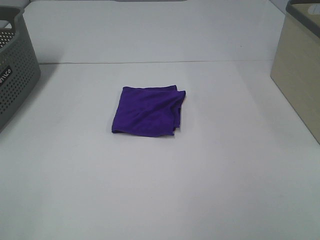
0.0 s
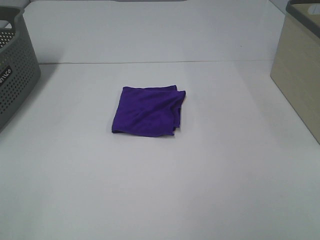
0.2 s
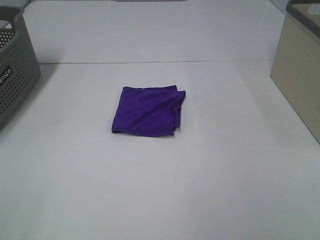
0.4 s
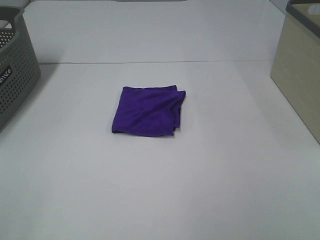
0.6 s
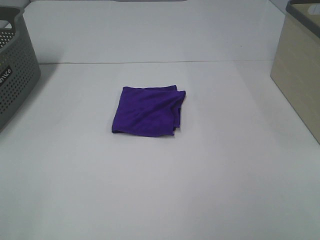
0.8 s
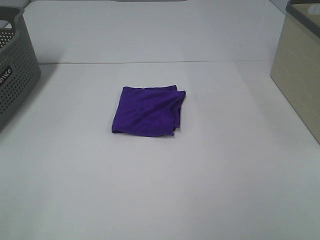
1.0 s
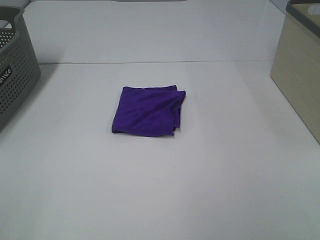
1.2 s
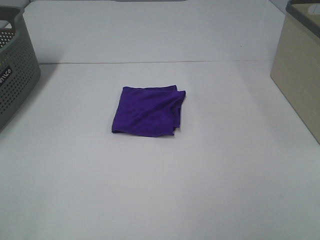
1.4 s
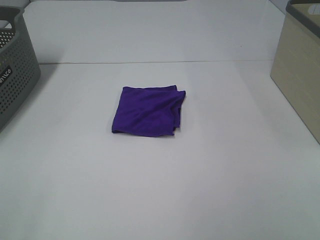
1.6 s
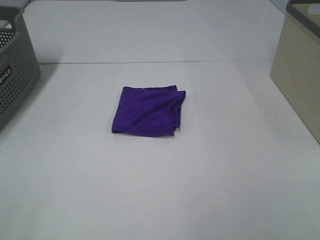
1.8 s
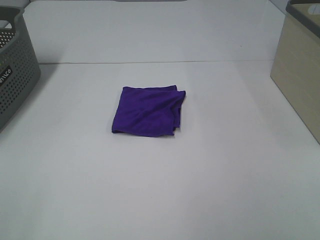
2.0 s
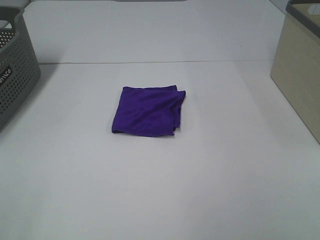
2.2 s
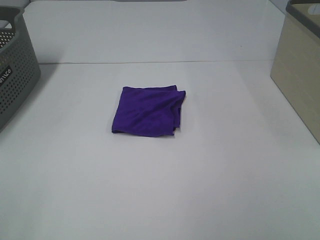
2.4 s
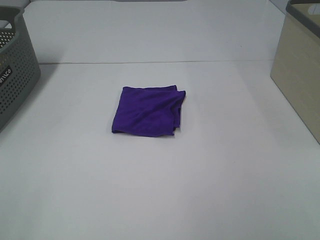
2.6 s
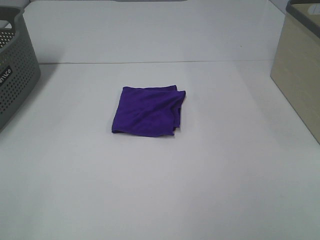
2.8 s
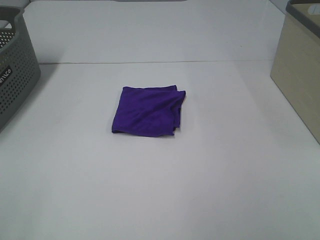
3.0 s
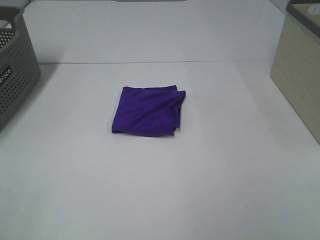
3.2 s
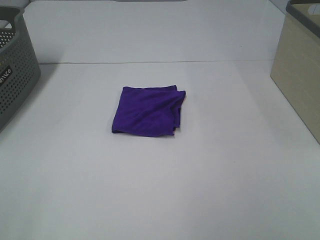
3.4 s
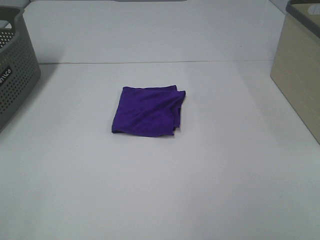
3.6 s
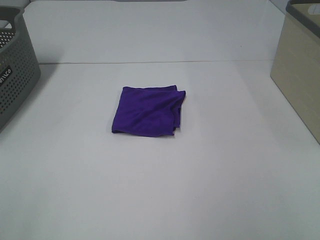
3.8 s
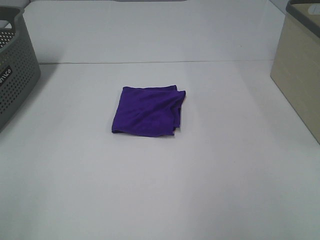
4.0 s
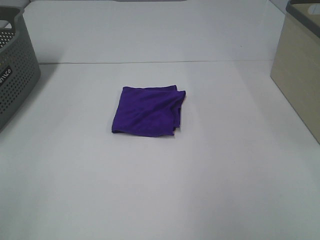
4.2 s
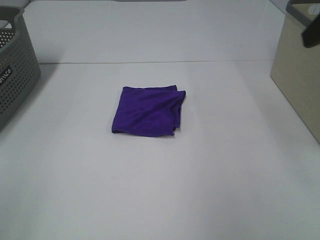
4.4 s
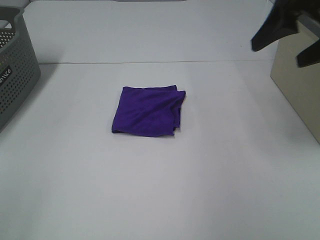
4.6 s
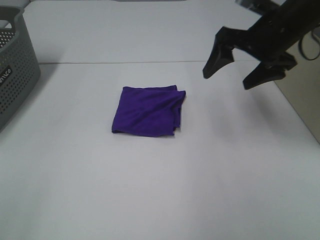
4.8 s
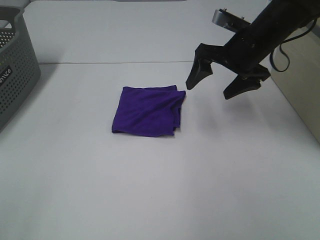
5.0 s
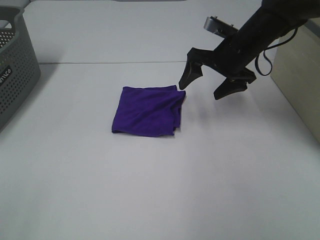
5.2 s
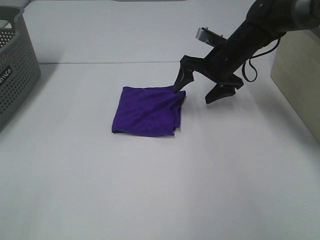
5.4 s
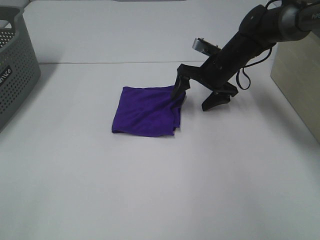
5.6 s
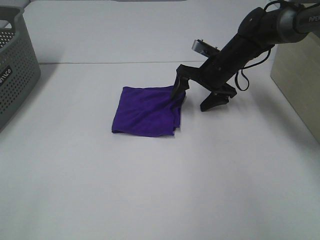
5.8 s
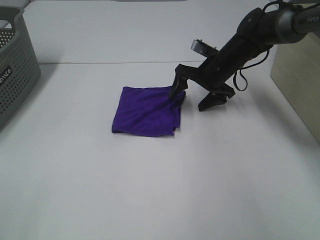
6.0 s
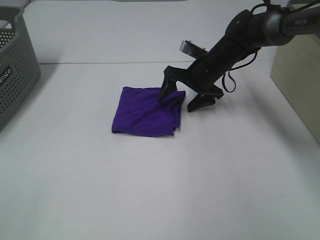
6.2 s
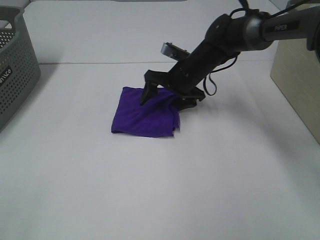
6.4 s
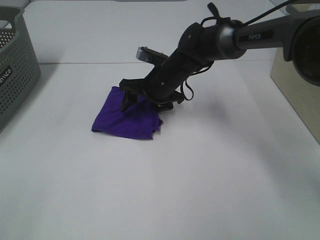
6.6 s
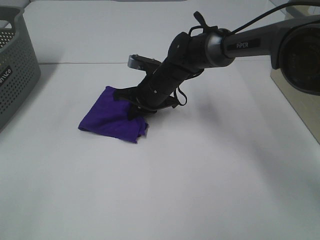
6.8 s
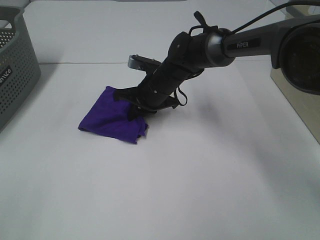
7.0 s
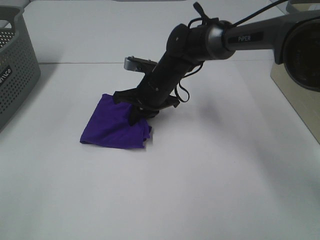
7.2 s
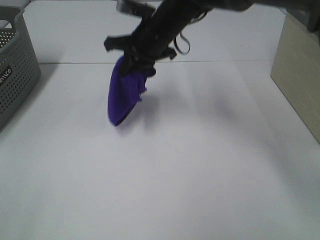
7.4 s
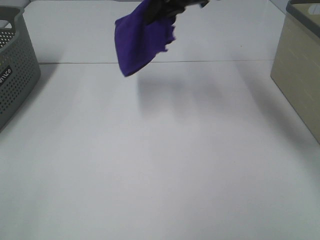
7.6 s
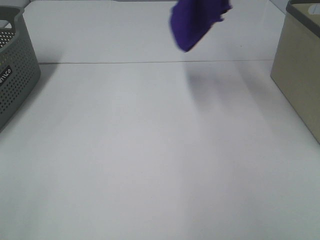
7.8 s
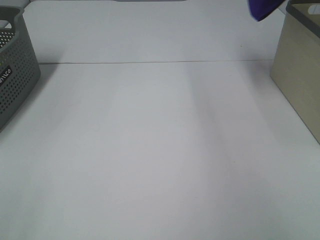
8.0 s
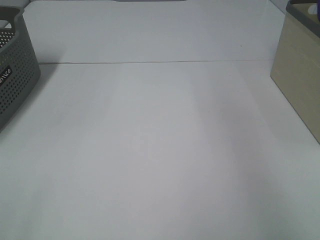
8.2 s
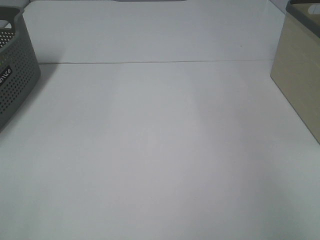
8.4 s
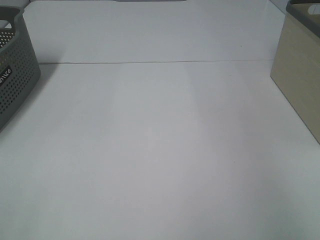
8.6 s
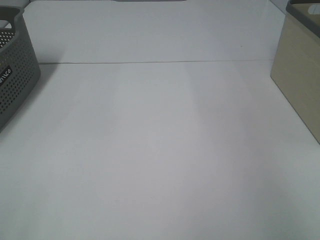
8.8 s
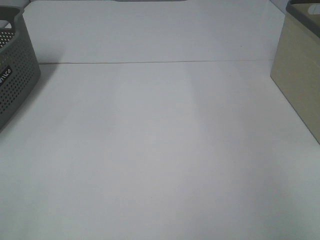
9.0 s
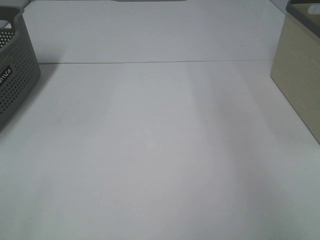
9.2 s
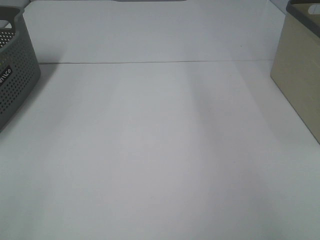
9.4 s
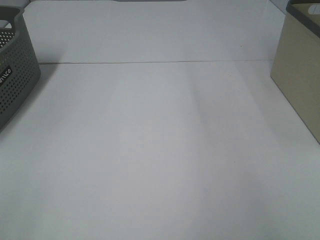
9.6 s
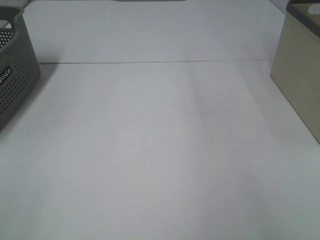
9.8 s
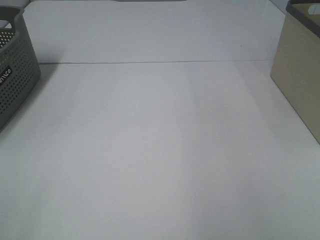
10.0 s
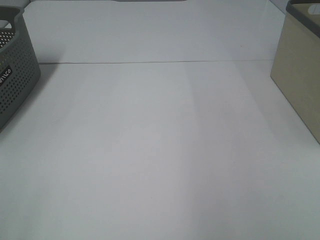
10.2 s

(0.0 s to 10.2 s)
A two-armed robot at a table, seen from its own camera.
Step, 0.0 s - 6.8 s: Right hand: grab the folded purple towel.
Step, 7.0 s - 8.8 s: Right hand: place the purple towel in right basket.
0.0 s - 3.0 s: Both grippers stay about where they are.
4.4 s - 5.8 s: The right gripper goes about 35 cm downward, forward and to the left.
5.8 s - 7.2 s: The right gripper heads to the left, covering approximately 15 cm, and closes up.
7.2 s - 8.8 s: The right gripper moves to the right and upward, approximately 50 cm, and opens.

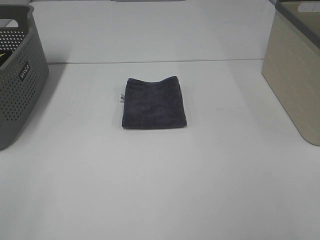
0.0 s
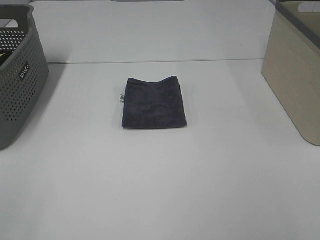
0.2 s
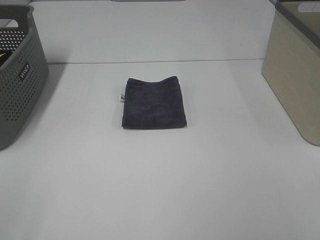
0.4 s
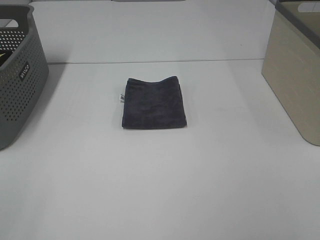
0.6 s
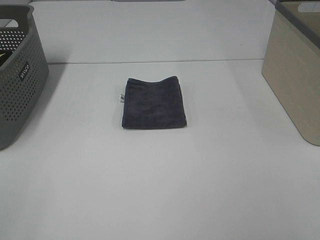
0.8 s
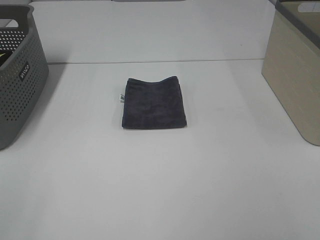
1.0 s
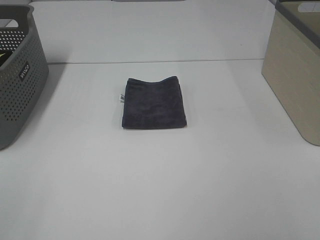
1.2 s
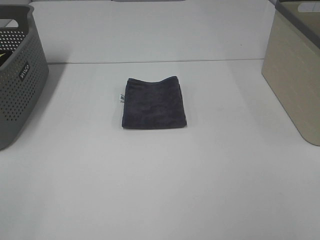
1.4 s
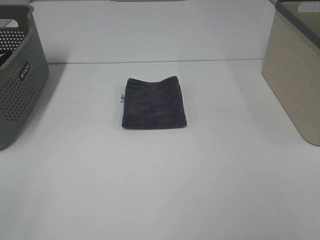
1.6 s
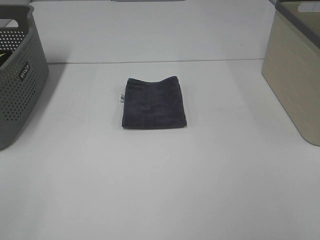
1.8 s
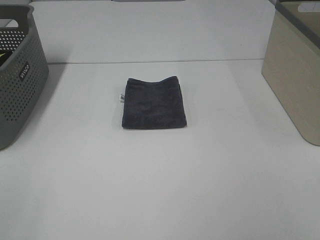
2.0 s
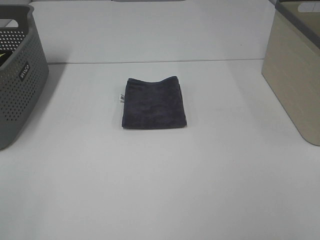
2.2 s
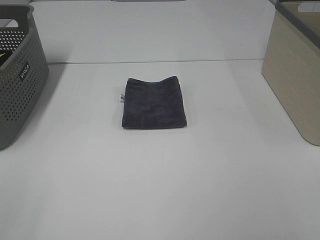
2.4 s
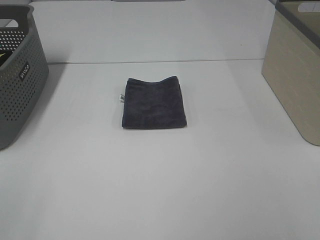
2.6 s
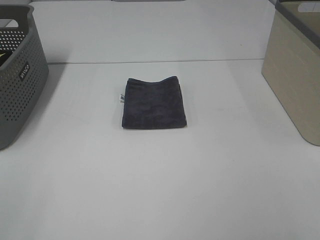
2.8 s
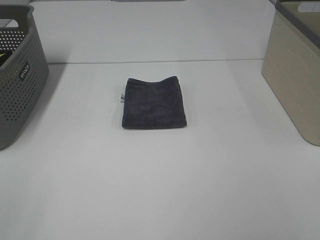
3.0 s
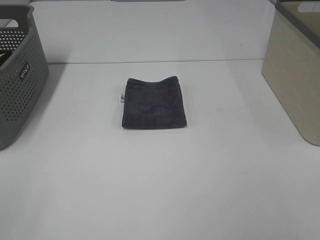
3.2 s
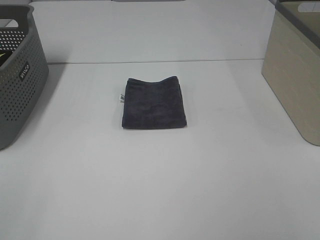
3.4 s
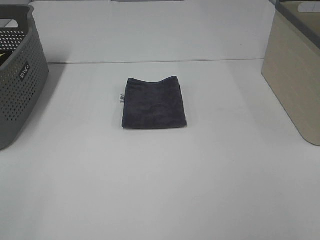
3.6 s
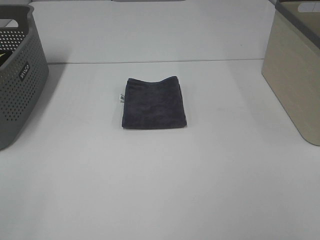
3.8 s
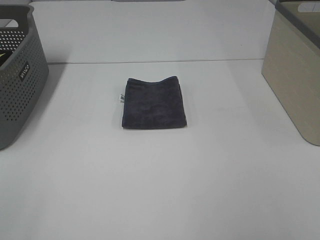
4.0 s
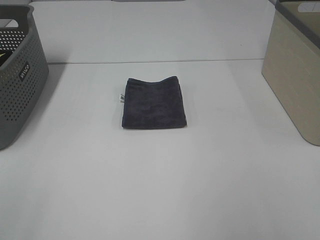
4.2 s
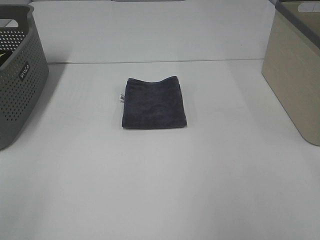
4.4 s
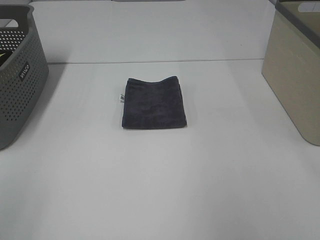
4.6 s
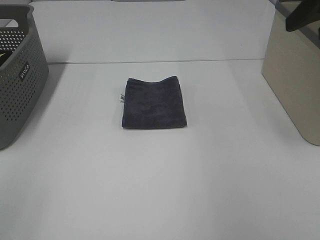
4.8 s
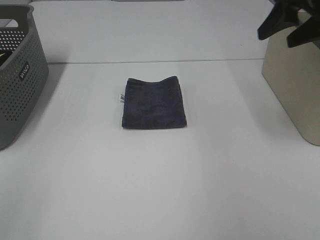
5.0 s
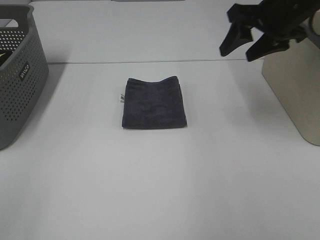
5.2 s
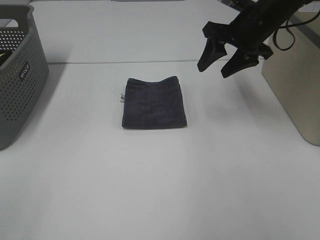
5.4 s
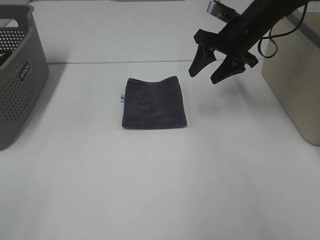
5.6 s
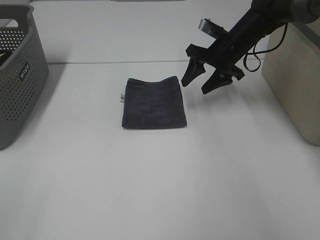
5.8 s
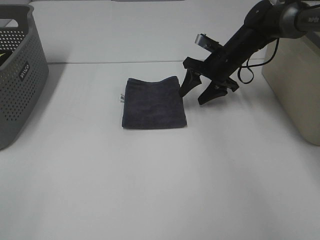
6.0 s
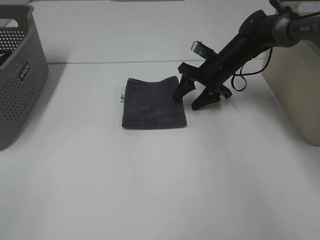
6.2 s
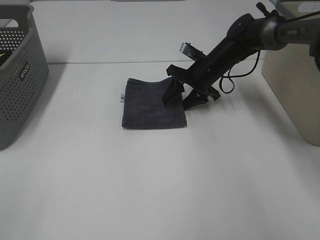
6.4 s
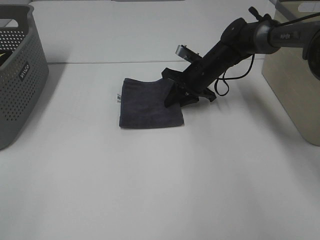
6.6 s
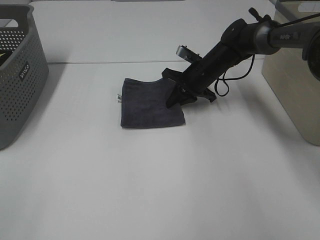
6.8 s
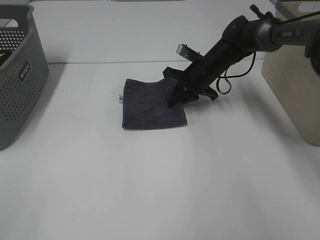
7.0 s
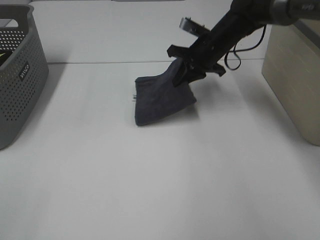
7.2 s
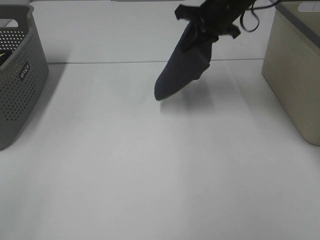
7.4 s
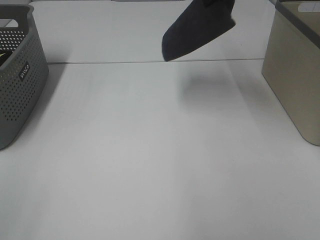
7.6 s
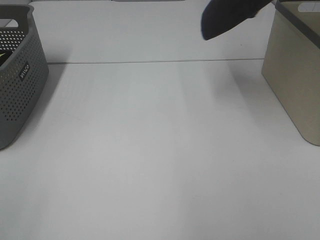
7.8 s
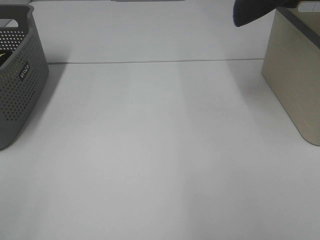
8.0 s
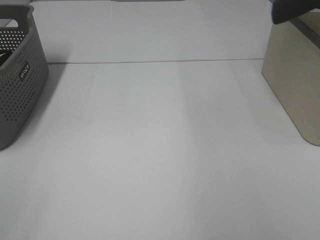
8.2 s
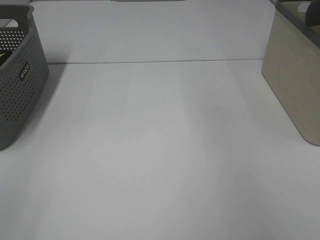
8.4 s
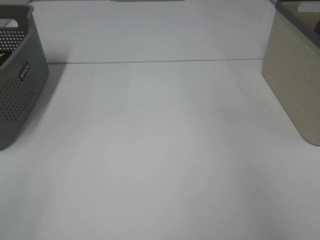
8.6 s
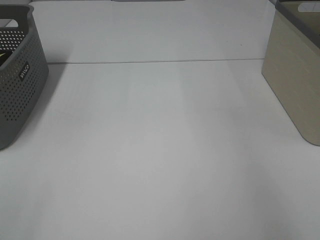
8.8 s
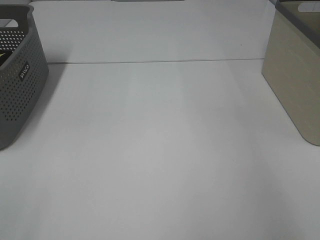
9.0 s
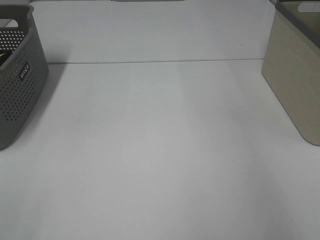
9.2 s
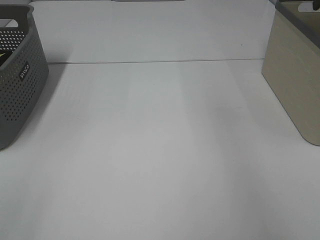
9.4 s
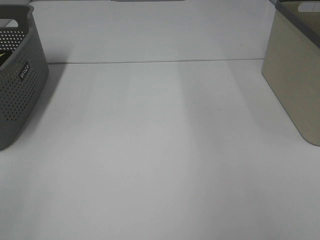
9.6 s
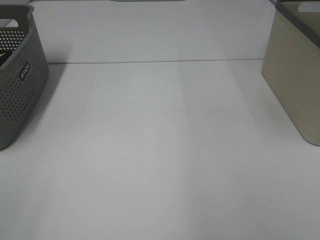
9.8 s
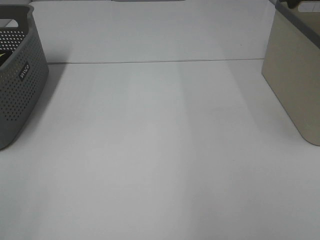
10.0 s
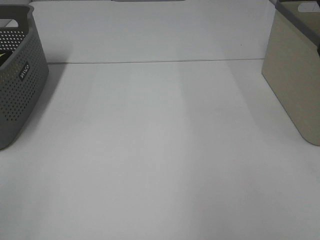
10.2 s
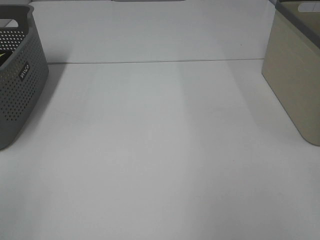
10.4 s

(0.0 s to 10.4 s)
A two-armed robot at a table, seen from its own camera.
Step, 0.0 s - 6.8 s: Right hand: grab the folded grey towel.
Step, 7.0 s - 9.2 s: Right hand: place the grey towel in right basket.
0.0 s - 3.0 s: Neither gripper changes place.
4.4 s - 6.0 s: The right gripper moves forward and downward, about 40 cm.
6.0 s - 7.4 s: The right gripper moves upward, some 15 cm, and closes.
7.4 s - 9.0 s: The right gripper travels to the right by about 25 cm, and opens up.

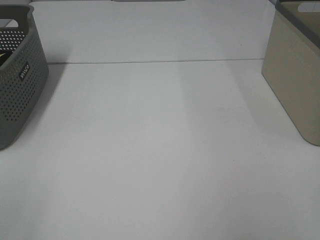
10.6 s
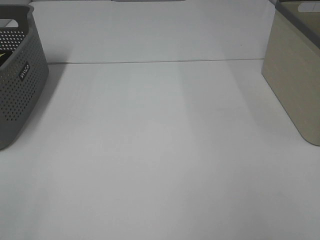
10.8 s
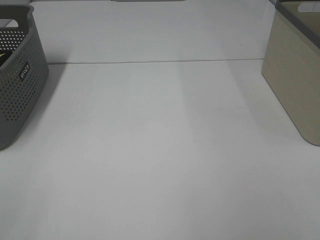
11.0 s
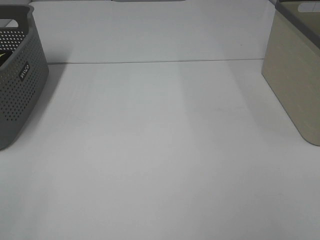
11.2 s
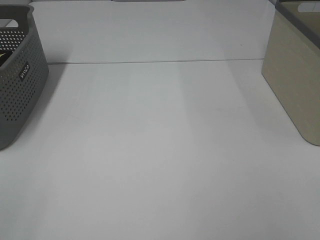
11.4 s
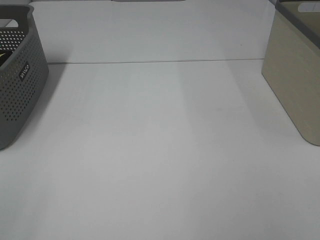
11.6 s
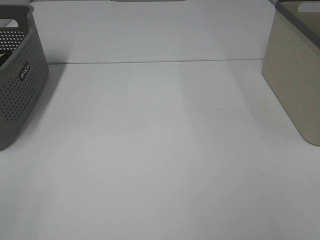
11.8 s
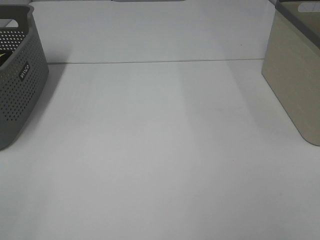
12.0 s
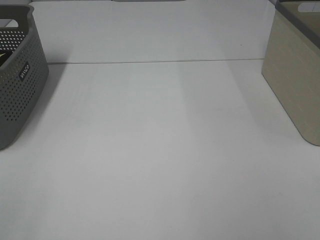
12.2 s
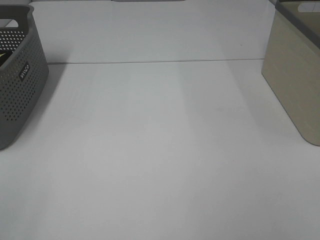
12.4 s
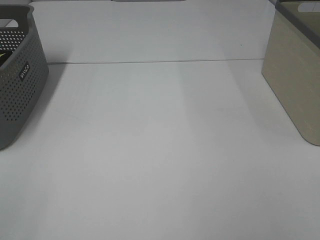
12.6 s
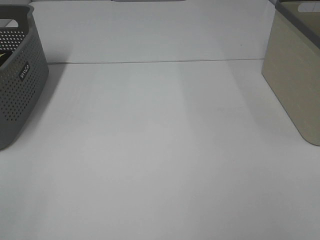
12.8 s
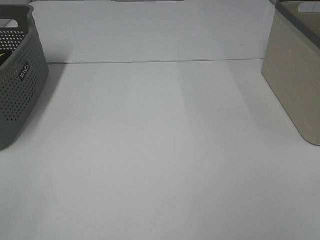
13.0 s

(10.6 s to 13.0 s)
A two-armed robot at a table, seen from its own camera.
11.8 s - 13.0 s: Both grippers stay put.
